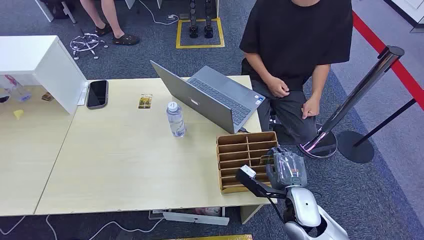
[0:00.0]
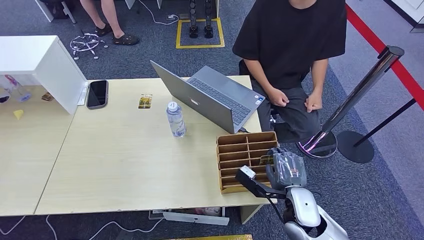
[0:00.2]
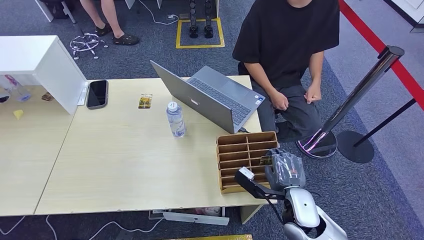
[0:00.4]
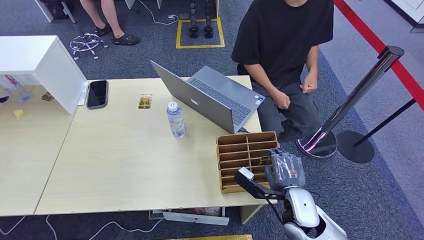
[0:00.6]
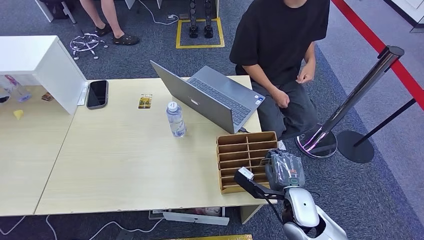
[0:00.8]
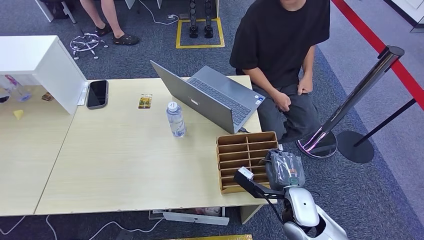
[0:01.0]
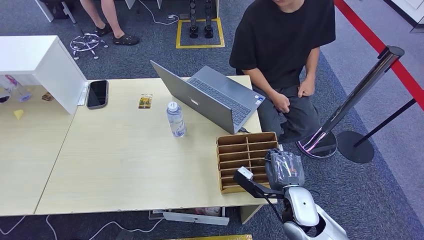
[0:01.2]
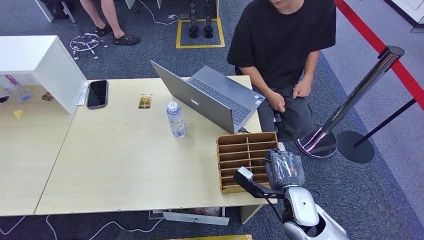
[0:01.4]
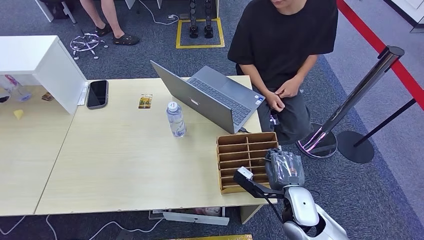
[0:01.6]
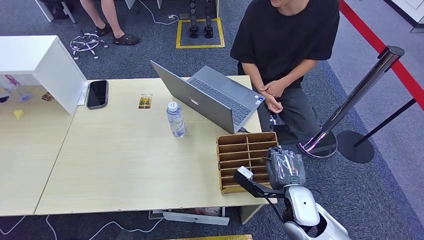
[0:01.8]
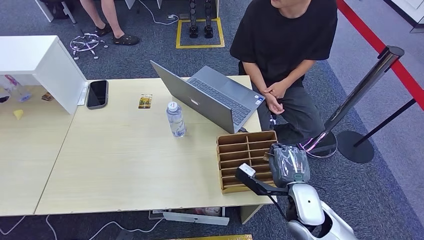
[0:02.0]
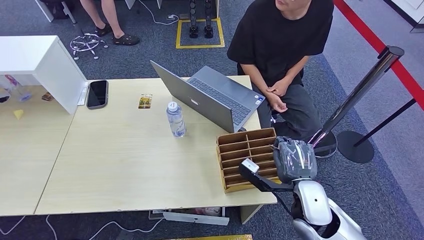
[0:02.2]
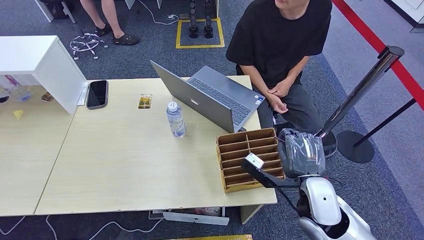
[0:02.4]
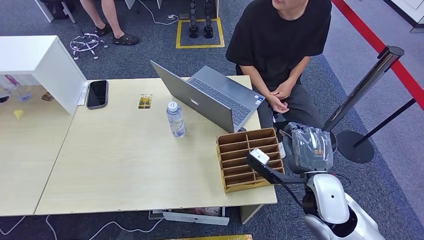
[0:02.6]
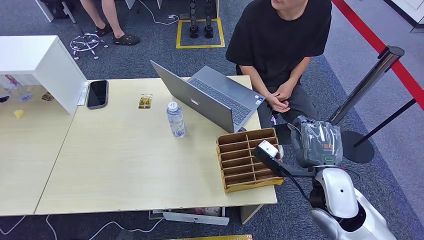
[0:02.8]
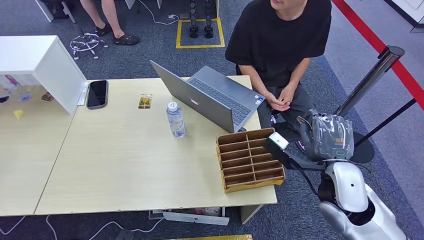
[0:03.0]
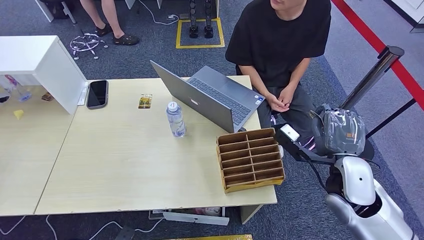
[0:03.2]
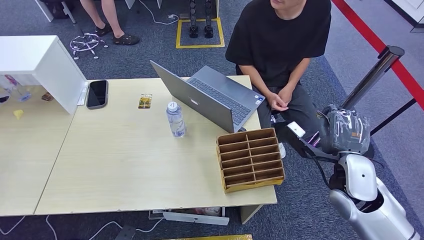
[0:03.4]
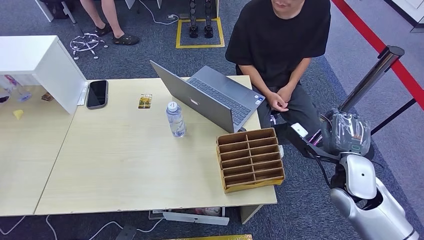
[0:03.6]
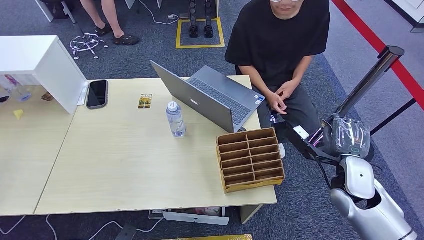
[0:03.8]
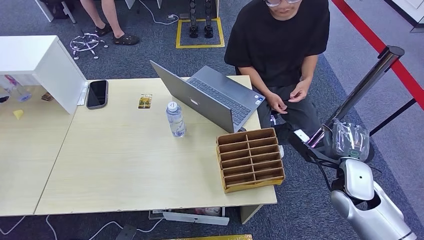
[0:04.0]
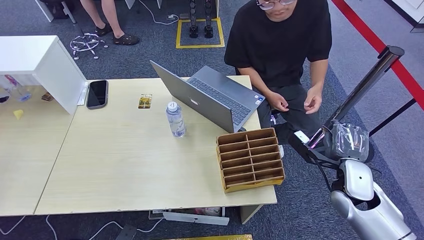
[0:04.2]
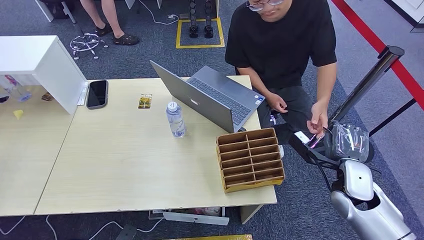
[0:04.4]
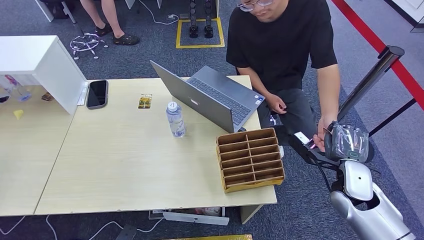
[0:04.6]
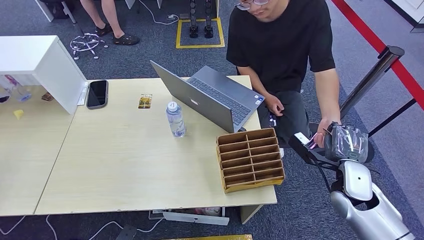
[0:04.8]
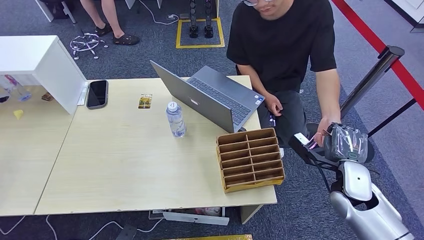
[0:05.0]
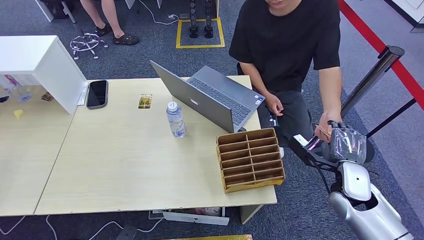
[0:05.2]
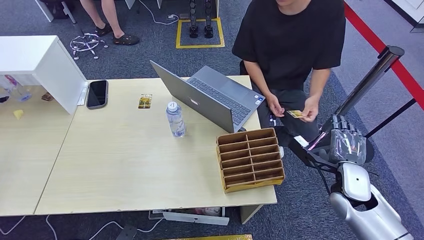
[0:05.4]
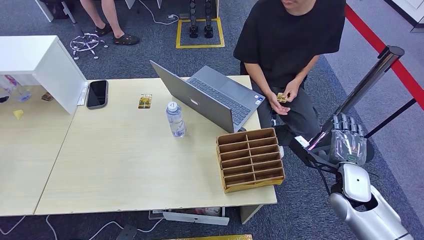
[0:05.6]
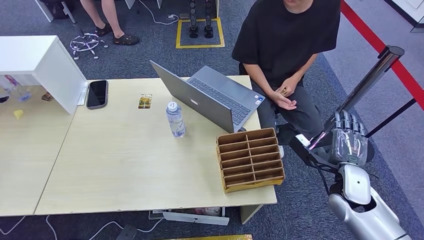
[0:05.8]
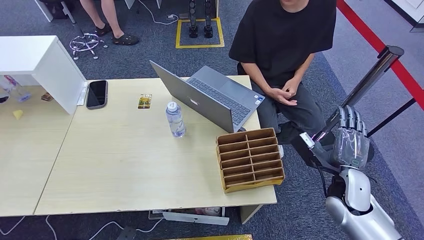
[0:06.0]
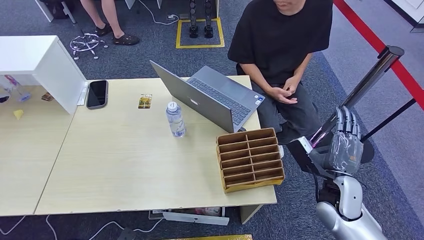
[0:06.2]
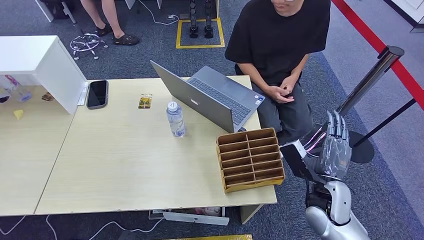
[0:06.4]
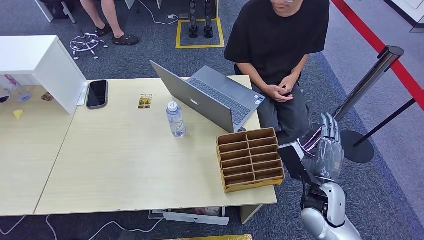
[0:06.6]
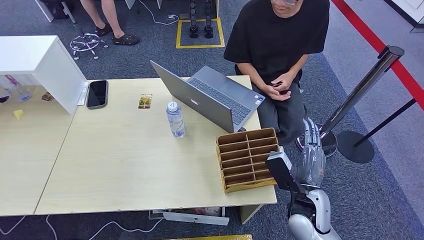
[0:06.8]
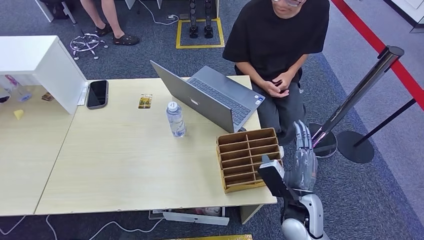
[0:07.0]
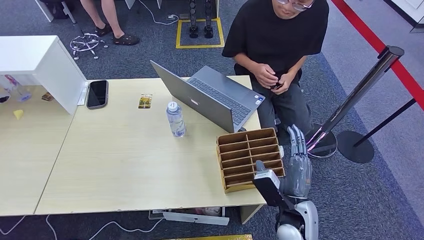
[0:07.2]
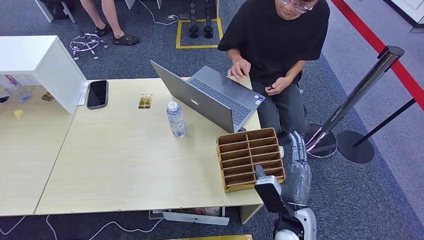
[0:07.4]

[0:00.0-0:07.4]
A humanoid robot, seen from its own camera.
Step, 0:00.0 to 0:02.8: Pick up the room card from the card holder.
Step, 0:03.0 to 0:07.4: Hand the room card to the target.
0:01.4 to 0:03.0: The right hand moves upward and to the right, about 10 cm.
0:03.0 to 0:04.4: The right hand heads to the right and downward, covering about 10 cm.
0:04.4 to 0:06.0: The hands move only a little.
0:06.0 to 0:07.4: The right hand is displaced to the left and backward by roughly 15 cm.
